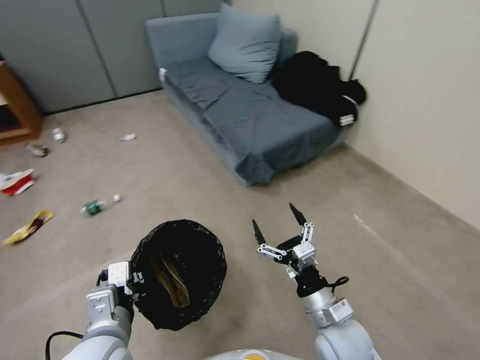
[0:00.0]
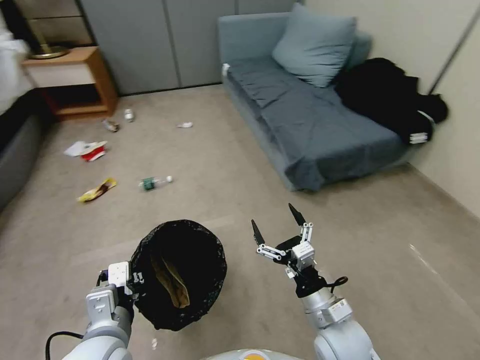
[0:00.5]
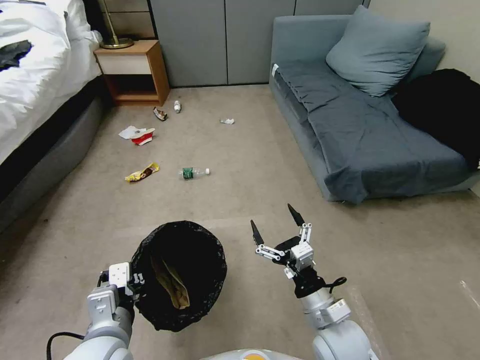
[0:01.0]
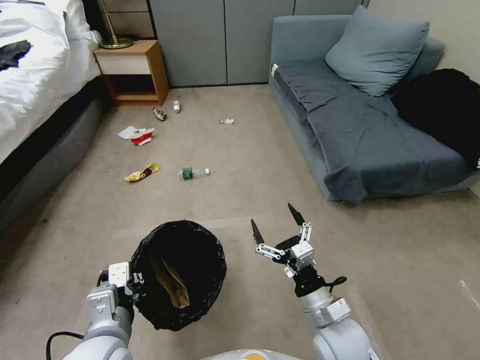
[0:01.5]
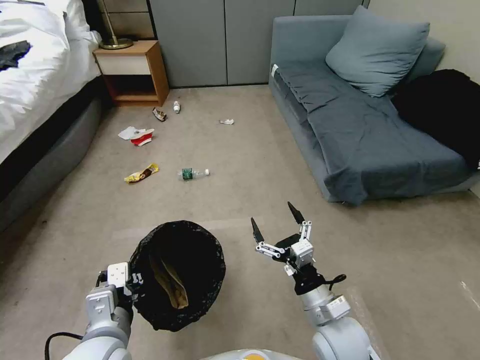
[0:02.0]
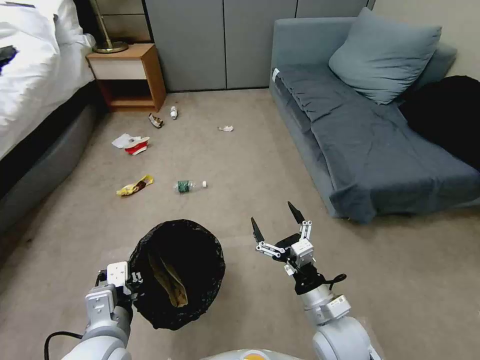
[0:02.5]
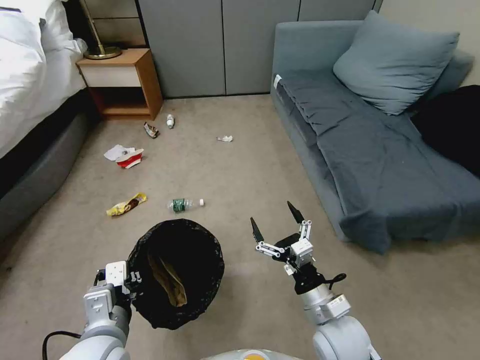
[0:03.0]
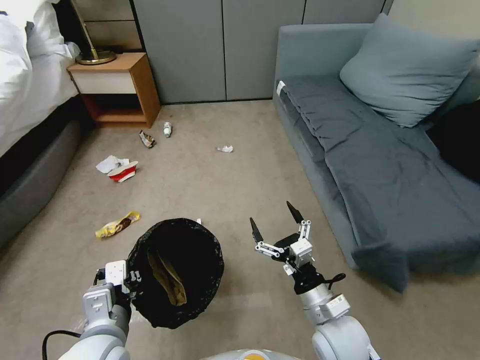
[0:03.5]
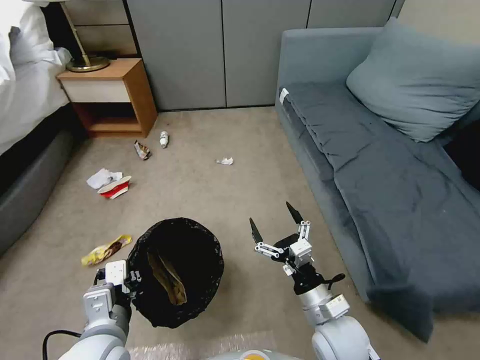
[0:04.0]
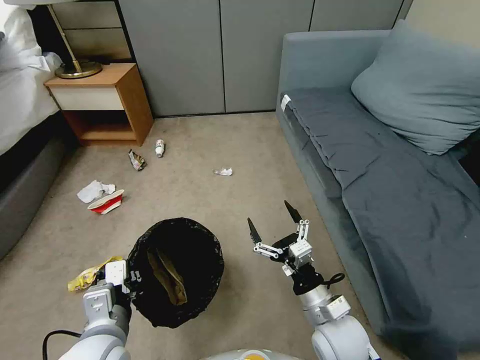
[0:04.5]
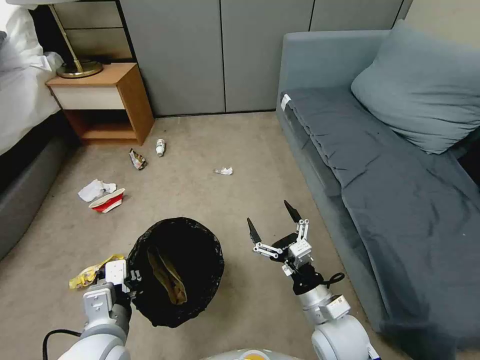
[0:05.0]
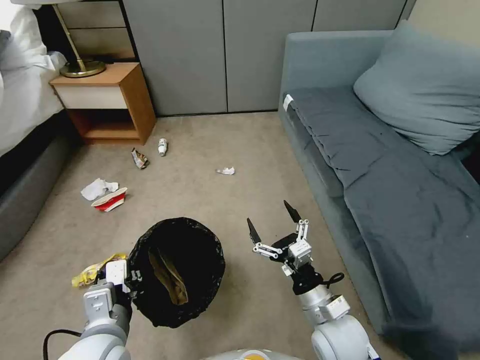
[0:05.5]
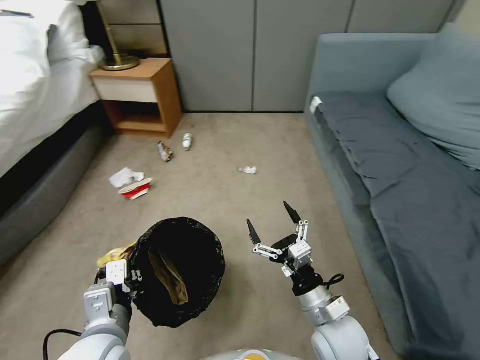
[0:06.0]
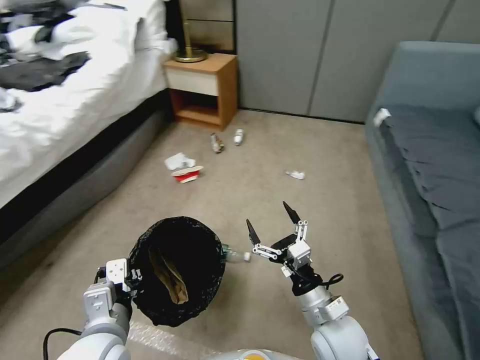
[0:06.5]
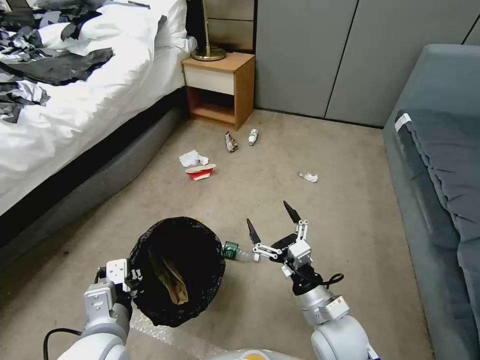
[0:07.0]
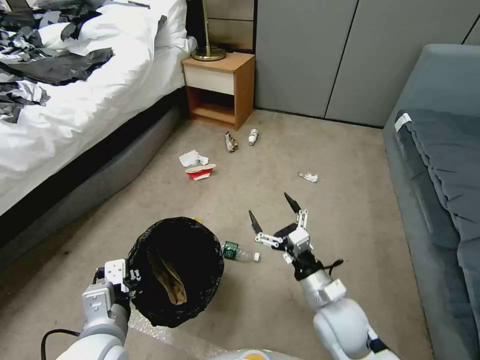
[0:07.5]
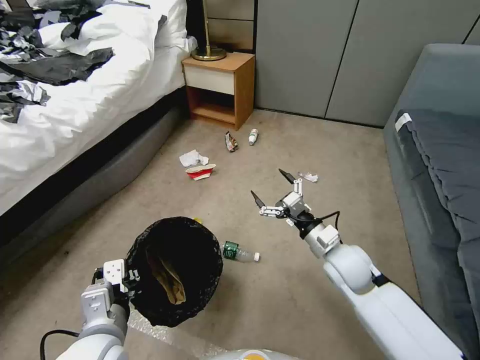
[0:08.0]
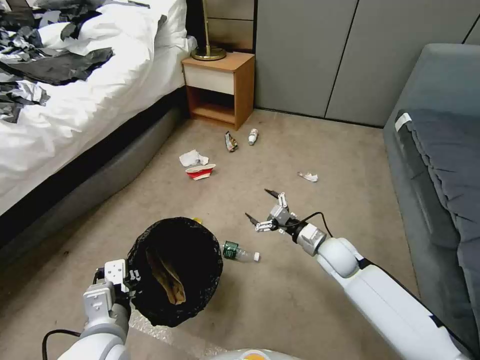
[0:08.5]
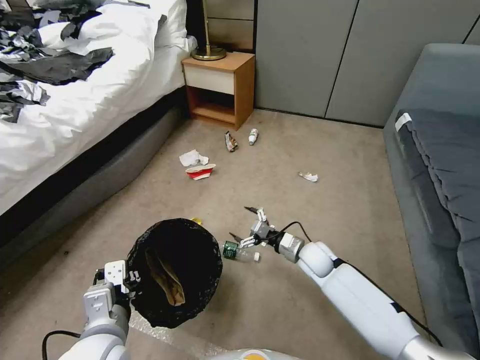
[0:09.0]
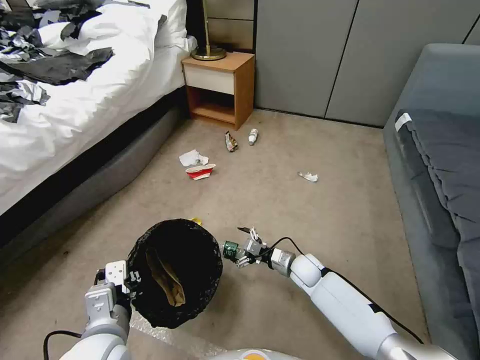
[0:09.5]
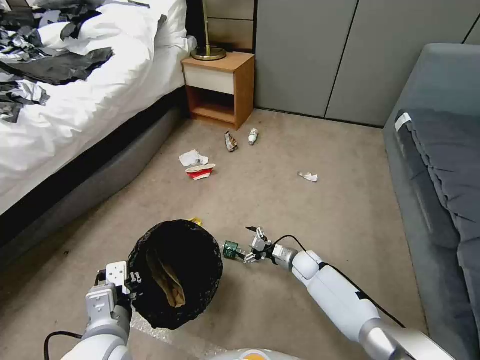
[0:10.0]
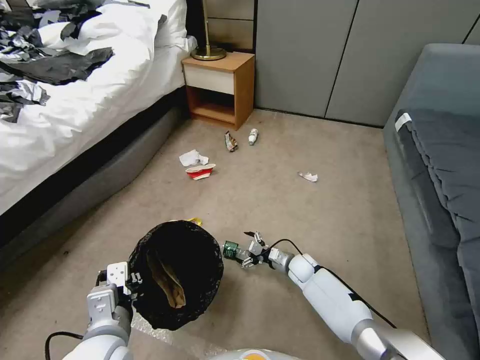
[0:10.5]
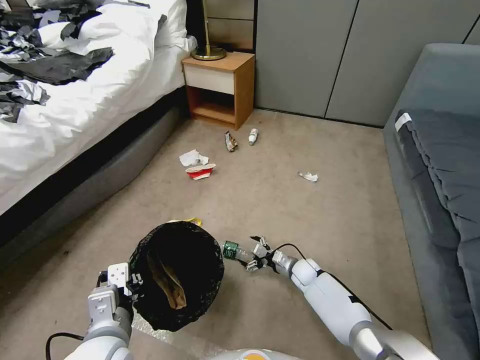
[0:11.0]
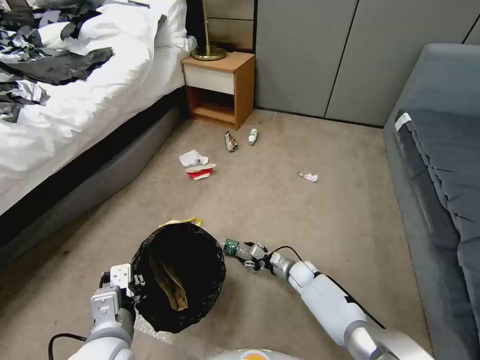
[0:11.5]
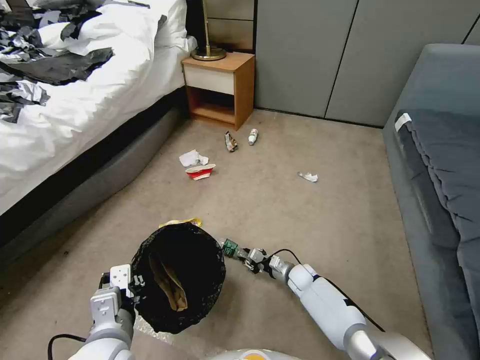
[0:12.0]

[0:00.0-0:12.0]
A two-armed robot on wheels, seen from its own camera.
Task of the whole recording: Pick up the trash bin, then pick up the garbage from the floor and place it into the trash bin.
0:06.0 to 0:08.0: The right gripper travels forward by about 15 cm.
0:08.0 to 0:10.0: The right gripper goes roughly 20 cm downward.
0:10.0 to 0:12.0: The right gripper shifts by roughly 5 cm, and closes up.

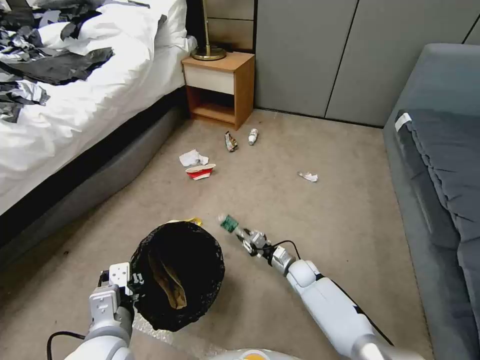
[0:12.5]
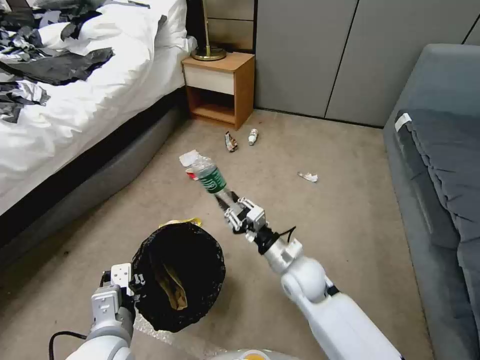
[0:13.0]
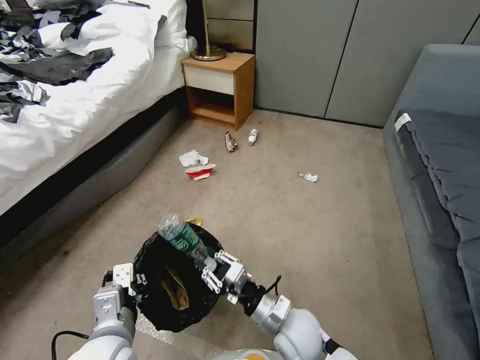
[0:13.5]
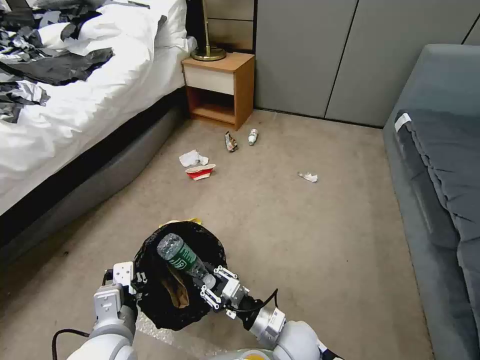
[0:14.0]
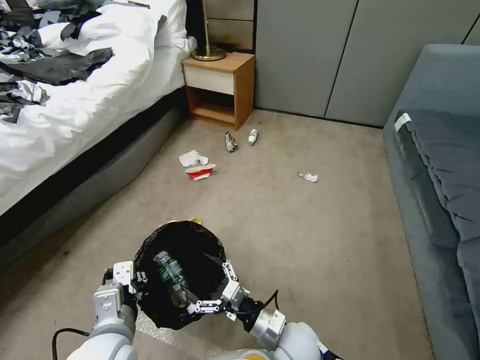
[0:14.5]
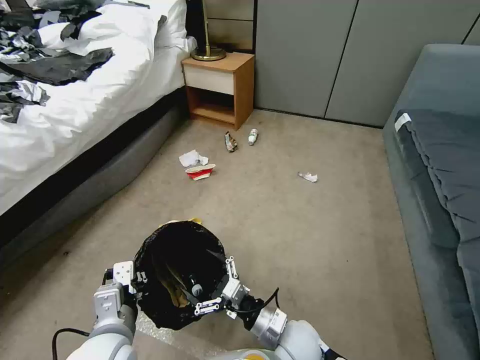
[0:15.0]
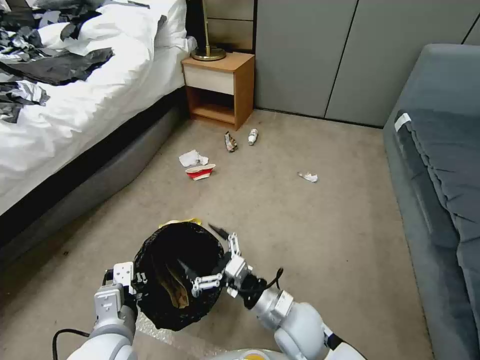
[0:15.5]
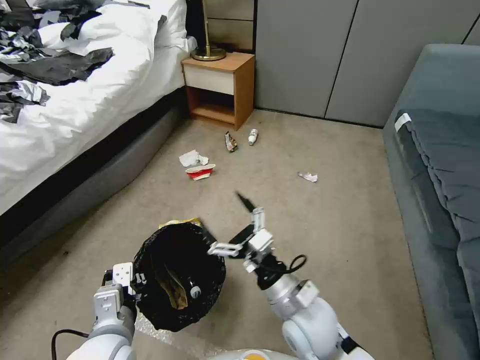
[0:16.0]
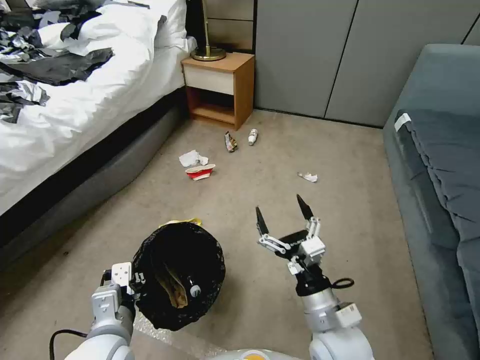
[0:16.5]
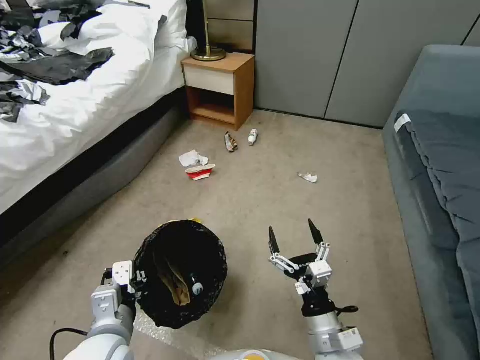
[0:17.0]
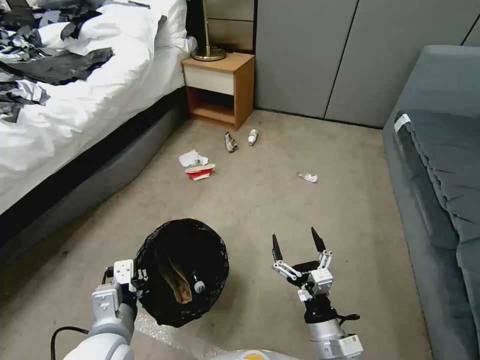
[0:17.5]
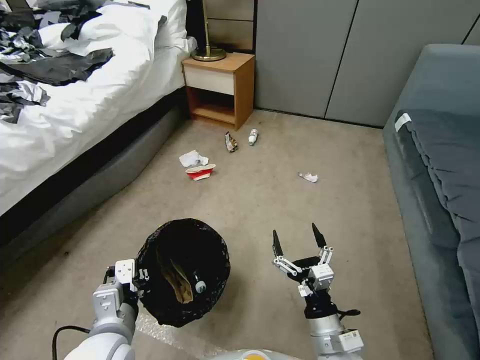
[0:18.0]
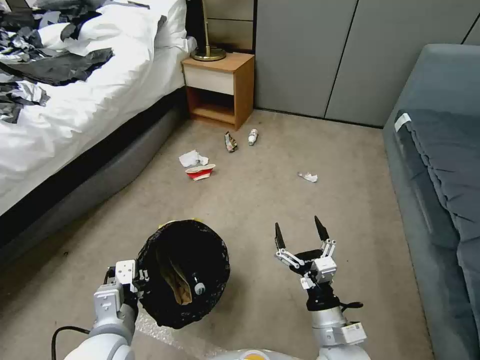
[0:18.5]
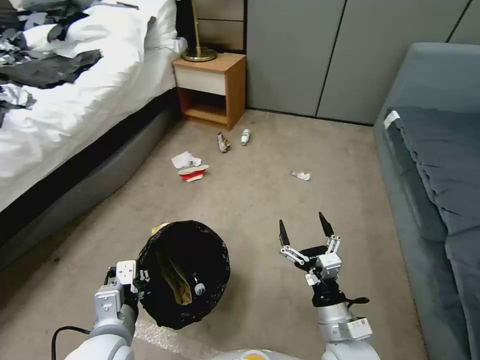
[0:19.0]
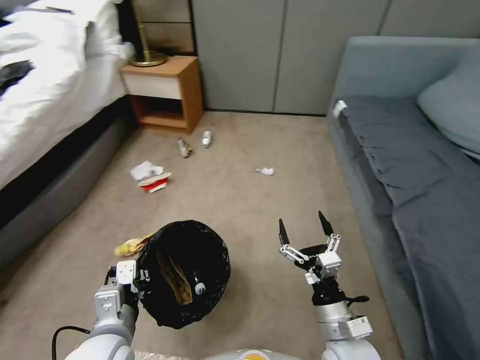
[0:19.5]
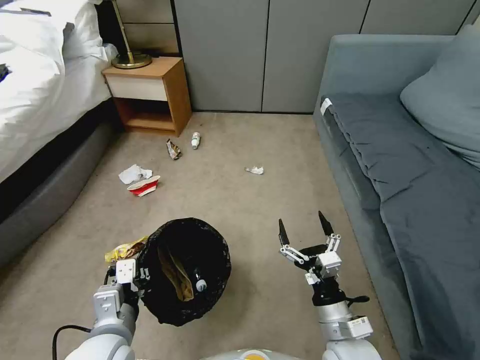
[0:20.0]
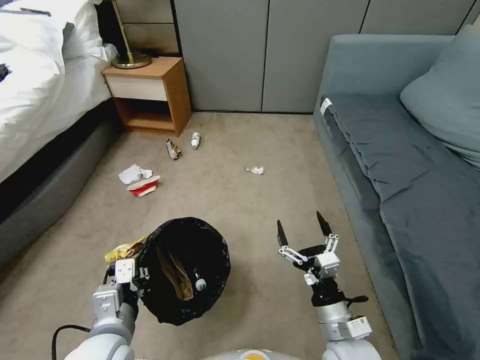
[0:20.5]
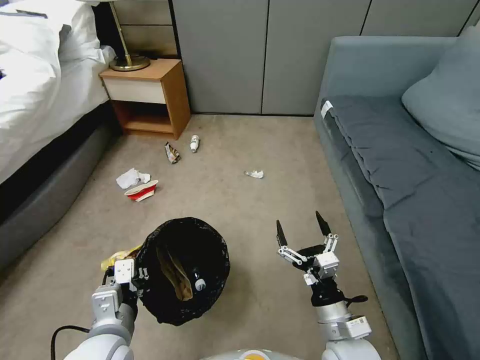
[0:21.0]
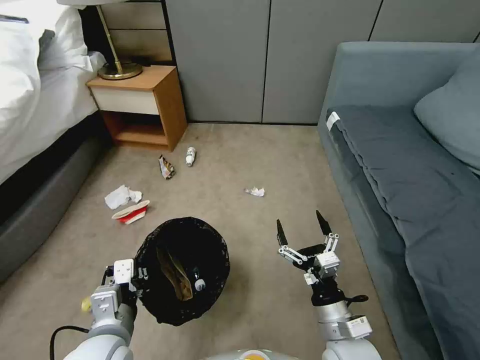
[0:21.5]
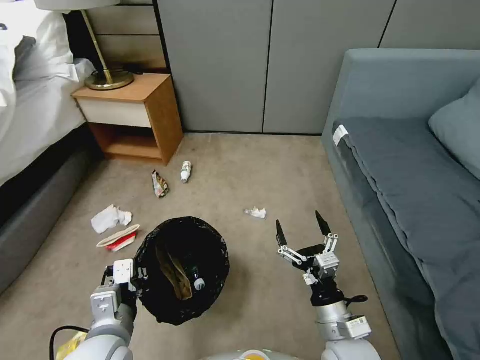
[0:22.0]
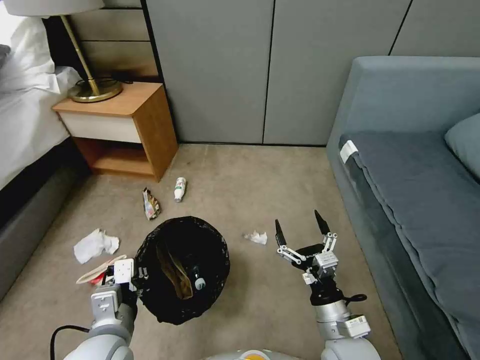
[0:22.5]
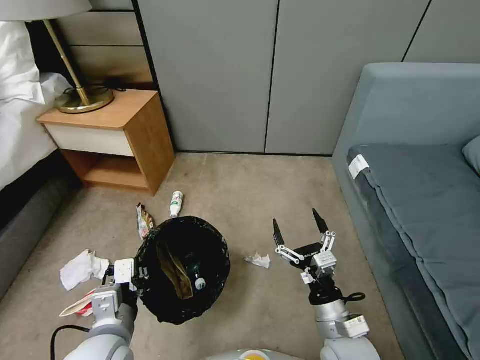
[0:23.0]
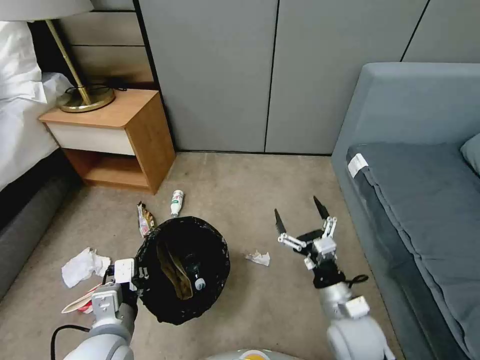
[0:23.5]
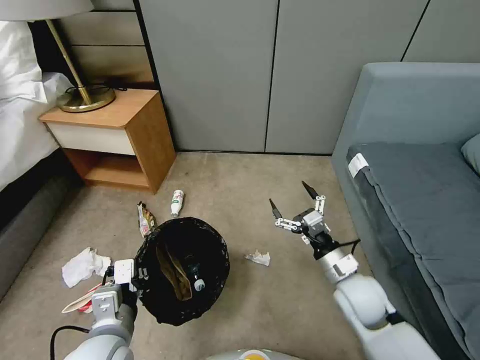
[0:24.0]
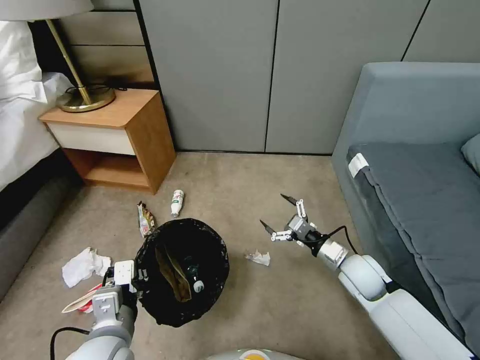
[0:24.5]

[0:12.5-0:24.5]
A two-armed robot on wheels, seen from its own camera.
Task of the whole recording: Pick up the trash bin, then pick up the garbage from the floor and place it into the trash bin.
0:12.5 to 0:14.5: The right gripper heads backward and upward, covering approximately 20 cm, and opens up.
0:14.5 to 0:16.5: The right gripper shifts about 10 cm upward and to the right.
0:16.5 to 0:18.5: The right gripper goes approximately 5 cm downward.
0:22.5 to 0:24.5: The right gripper is displaced forward and to the right by some 20 cm.

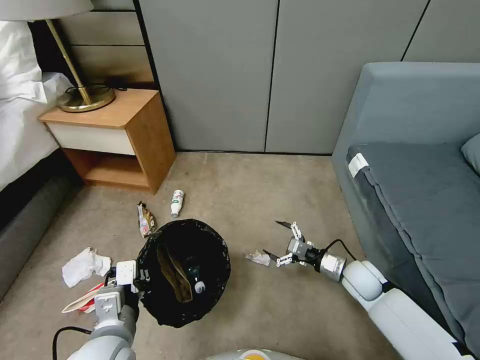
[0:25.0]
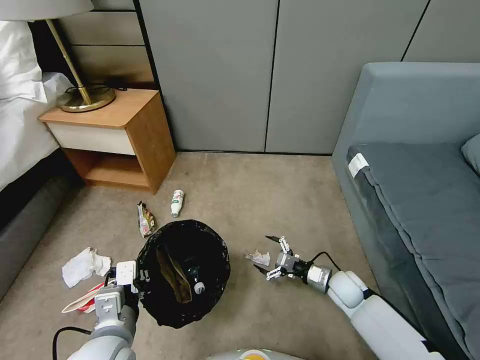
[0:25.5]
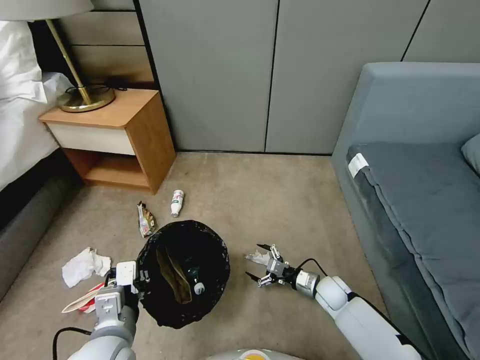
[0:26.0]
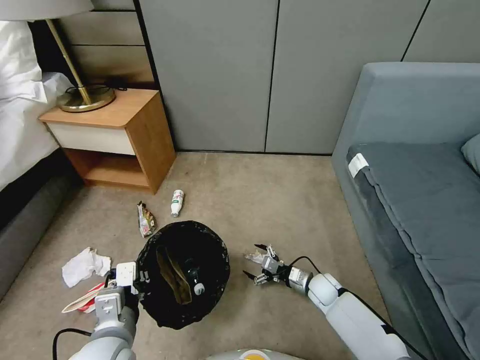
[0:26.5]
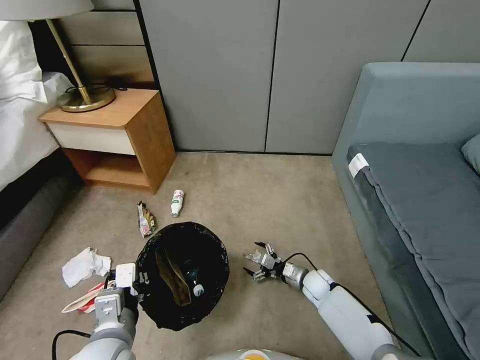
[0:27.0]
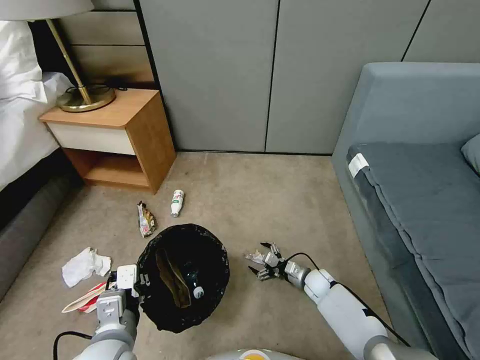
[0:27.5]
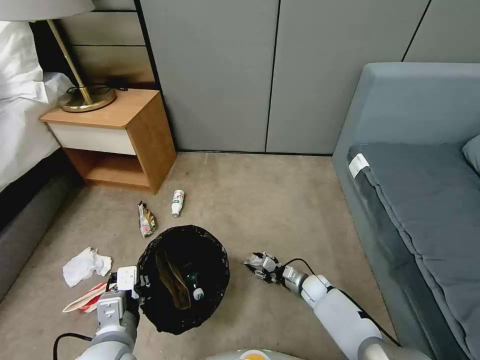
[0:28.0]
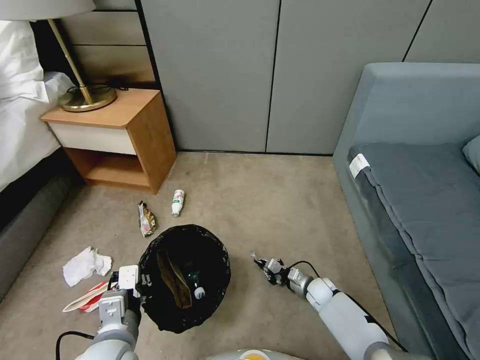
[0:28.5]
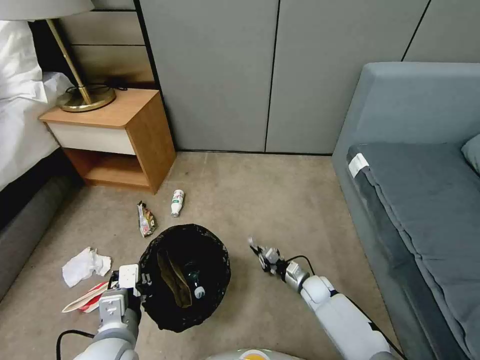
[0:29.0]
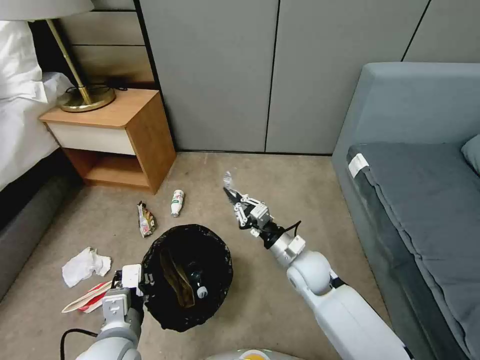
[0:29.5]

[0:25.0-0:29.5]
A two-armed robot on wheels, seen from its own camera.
Task of the whole recording: Pick up the trash bin, then pick up the garbage from the floor and place it into the trash bin.
0:25.0 to 0:27.0: The right gripper goes approximately 15 cm downward and to the left.
0:27.0 to 0:29.5: The right gripper heads upward and to the left, covering roughly 25 cm, and closes up.
